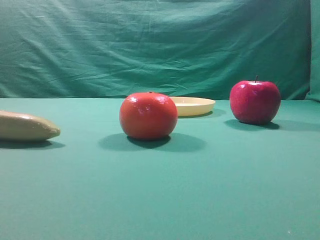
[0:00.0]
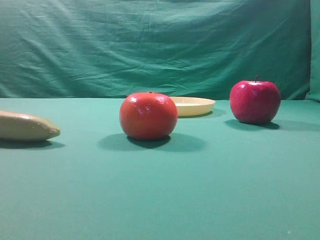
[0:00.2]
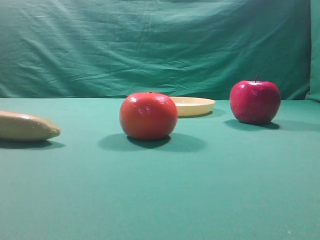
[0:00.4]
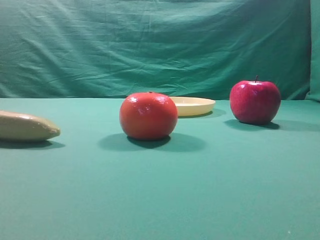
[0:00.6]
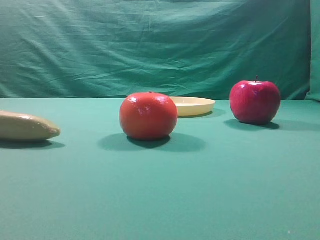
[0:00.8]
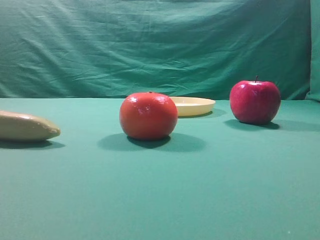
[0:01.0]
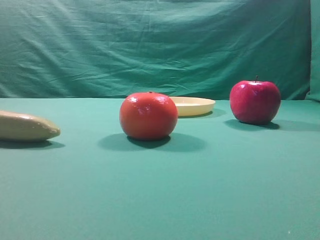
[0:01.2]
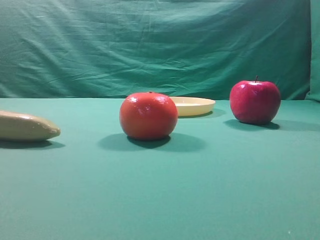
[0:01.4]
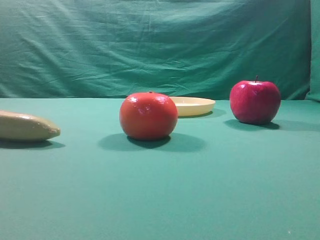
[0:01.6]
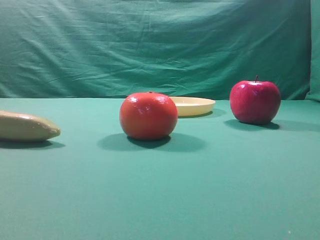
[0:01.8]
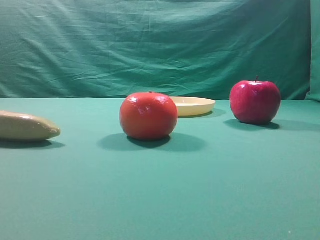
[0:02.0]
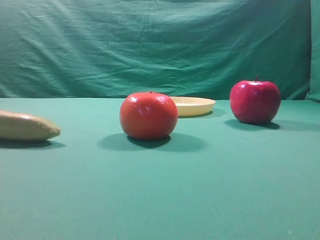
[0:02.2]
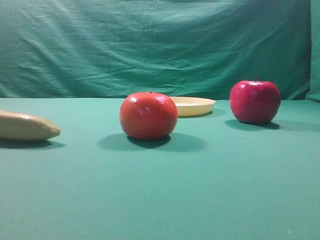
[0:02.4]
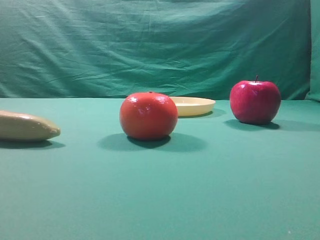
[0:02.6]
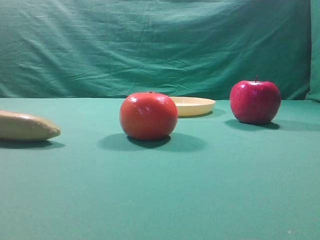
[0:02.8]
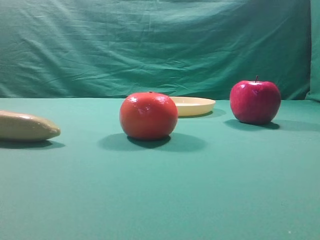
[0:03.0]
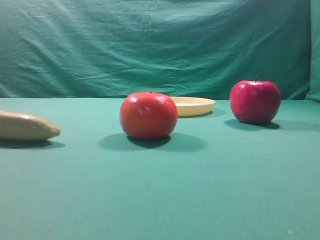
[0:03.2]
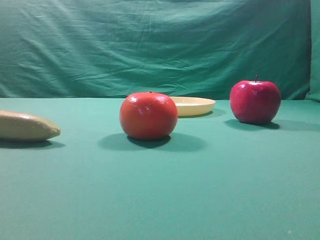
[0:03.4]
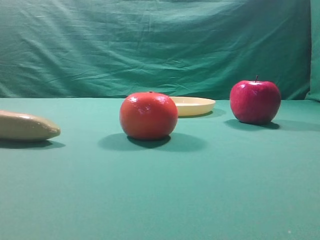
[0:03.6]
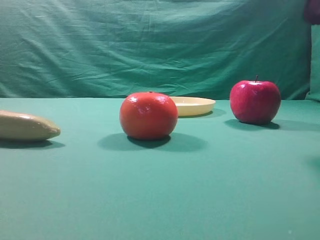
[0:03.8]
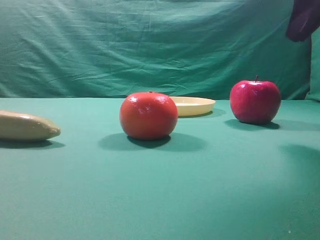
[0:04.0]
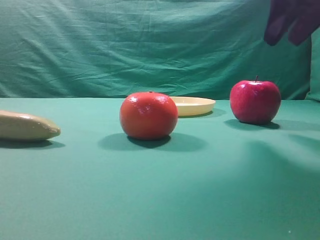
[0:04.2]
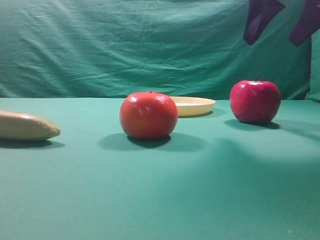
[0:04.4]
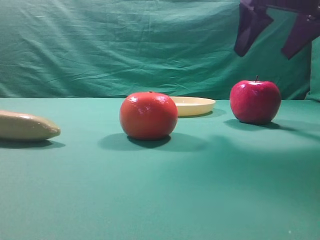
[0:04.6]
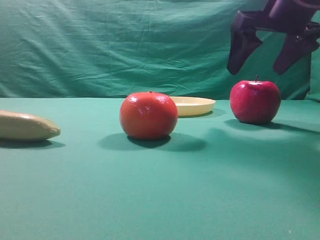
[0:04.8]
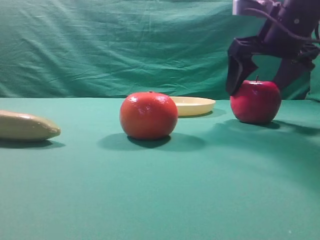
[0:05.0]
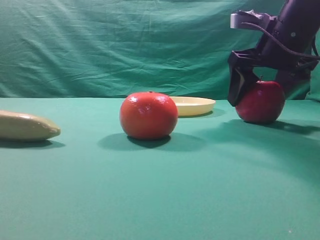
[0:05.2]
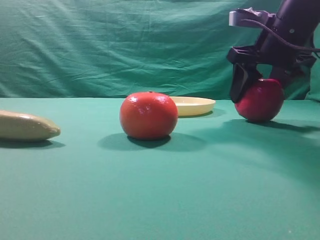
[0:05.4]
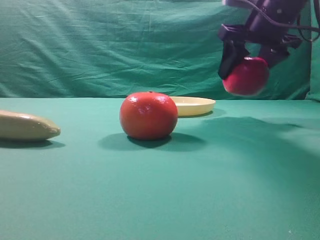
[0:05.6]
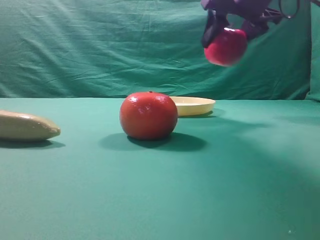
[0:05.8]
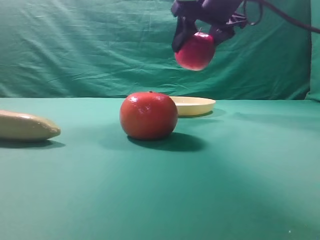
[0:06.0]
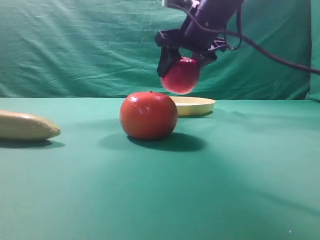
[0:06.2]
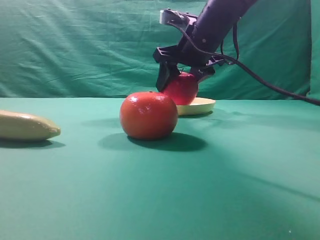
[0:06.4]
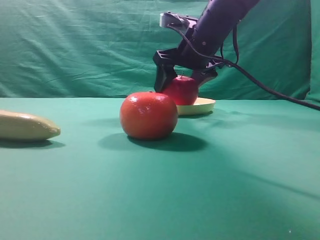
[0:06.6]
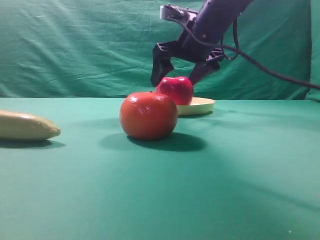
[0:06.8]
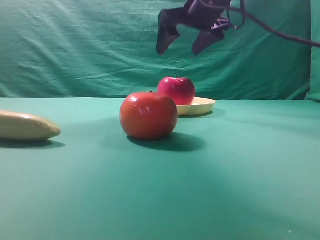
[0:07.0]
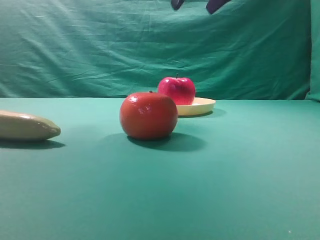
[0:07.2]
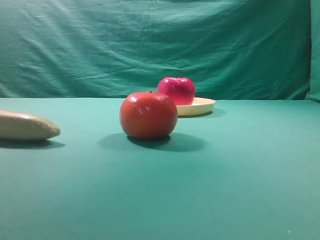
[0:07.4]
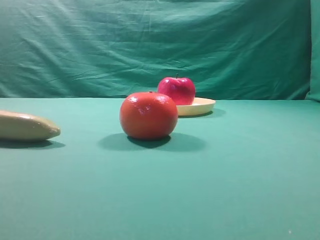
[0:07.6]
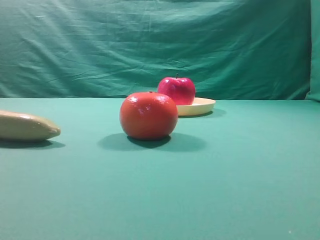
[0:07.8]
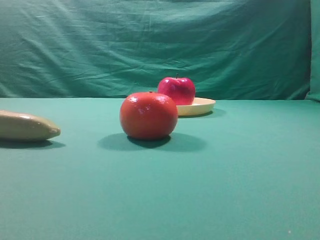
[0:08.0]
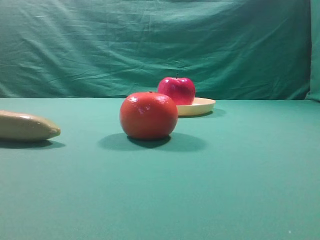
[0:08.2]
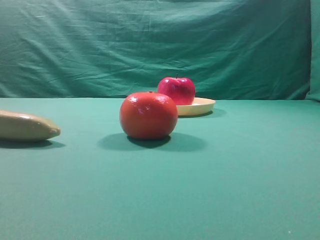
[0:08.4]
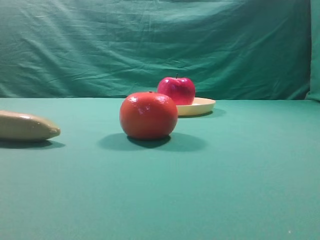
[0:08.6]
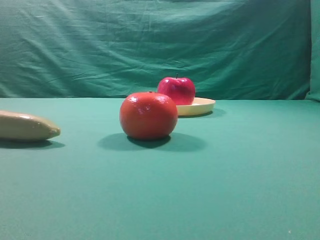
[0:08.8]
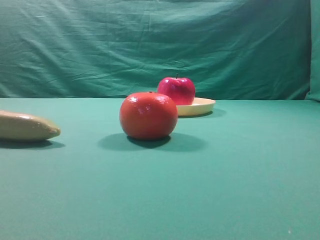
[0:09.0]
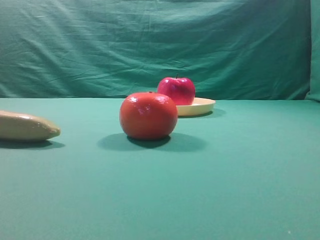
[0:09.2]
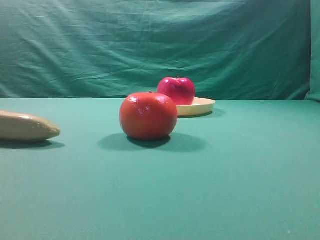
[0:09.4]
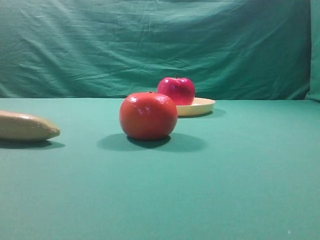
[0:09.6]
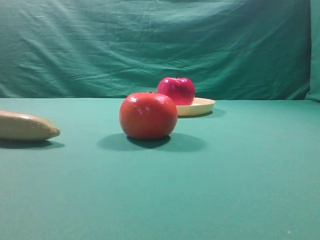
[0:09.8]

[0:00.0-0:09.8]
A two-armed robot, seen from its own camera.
Task of the whole recording: grasp the apple and place it into the yellow plate.
Step, 0:00.0 to 0:05.4: Grasp the fruit that can keep the doctor away.
Step, 0:05.6 to 0:06.8: Place the picked object into the yellow plate.

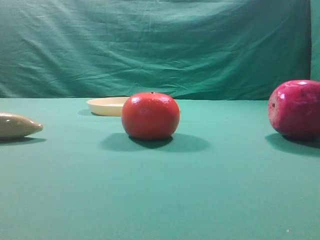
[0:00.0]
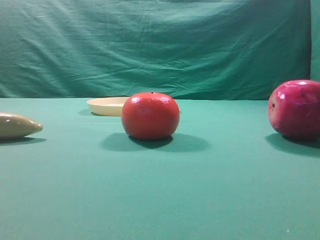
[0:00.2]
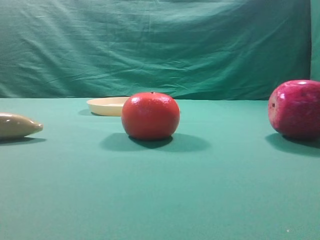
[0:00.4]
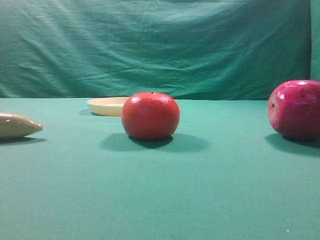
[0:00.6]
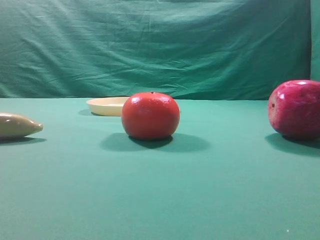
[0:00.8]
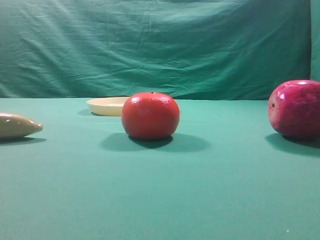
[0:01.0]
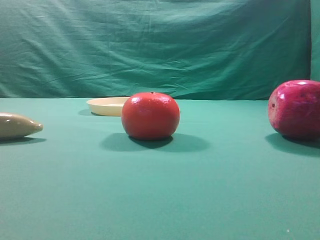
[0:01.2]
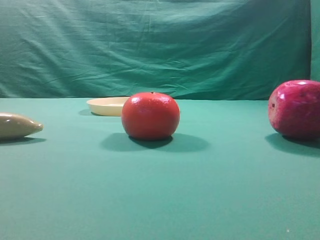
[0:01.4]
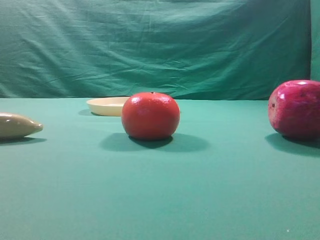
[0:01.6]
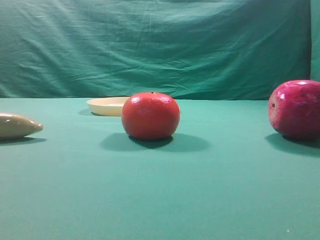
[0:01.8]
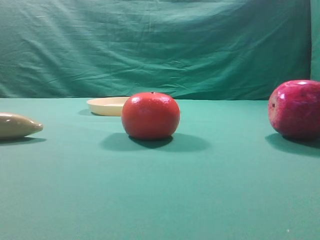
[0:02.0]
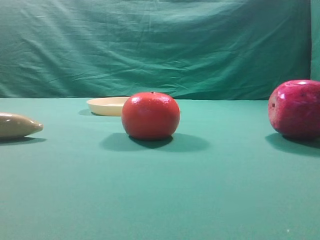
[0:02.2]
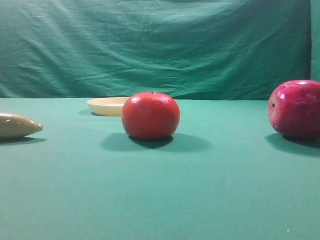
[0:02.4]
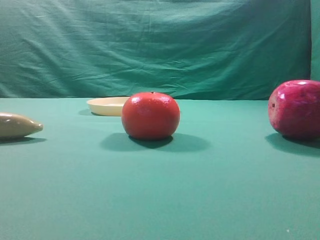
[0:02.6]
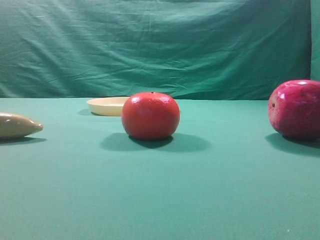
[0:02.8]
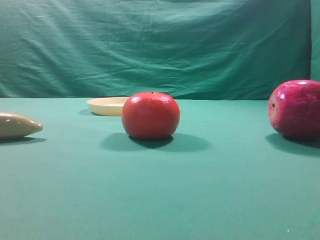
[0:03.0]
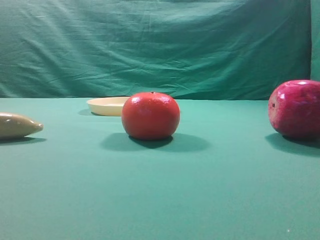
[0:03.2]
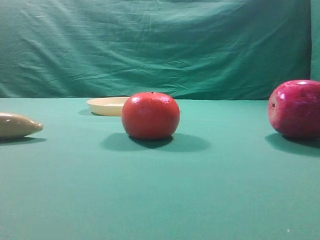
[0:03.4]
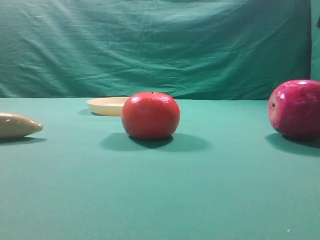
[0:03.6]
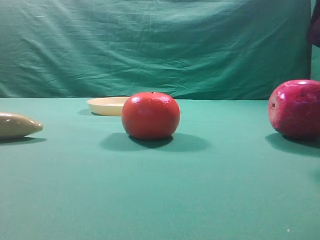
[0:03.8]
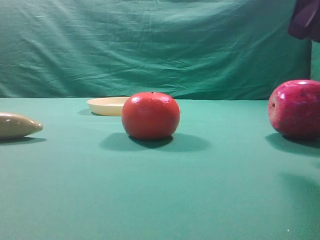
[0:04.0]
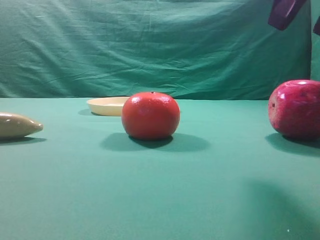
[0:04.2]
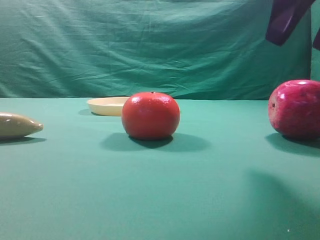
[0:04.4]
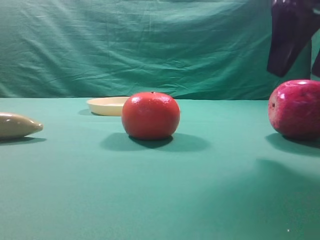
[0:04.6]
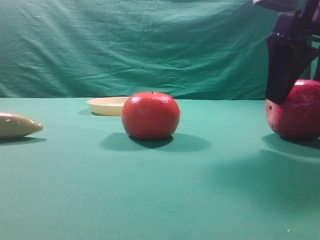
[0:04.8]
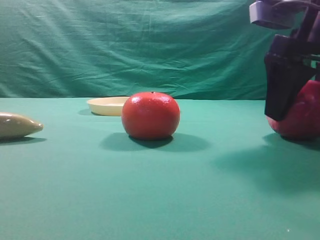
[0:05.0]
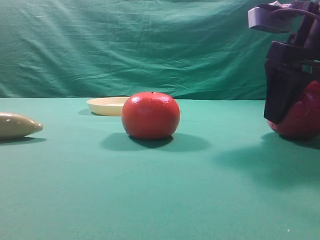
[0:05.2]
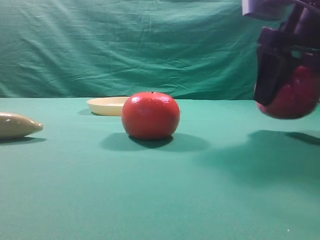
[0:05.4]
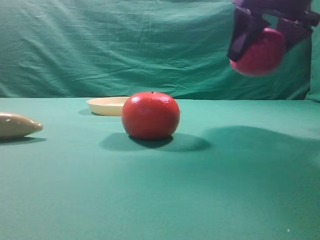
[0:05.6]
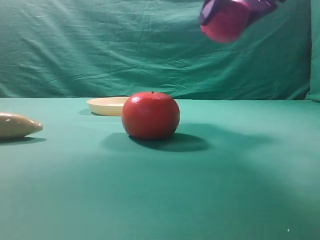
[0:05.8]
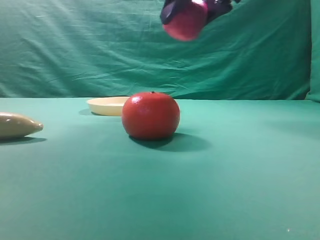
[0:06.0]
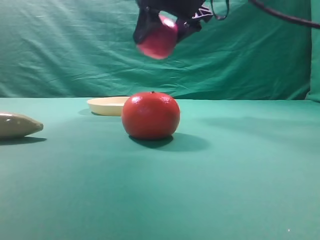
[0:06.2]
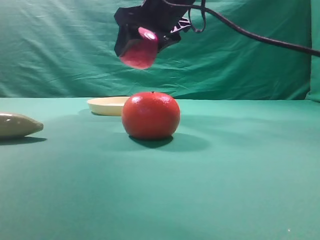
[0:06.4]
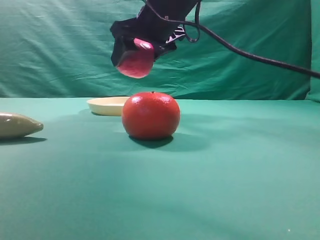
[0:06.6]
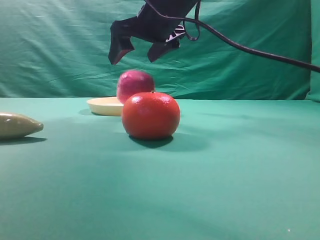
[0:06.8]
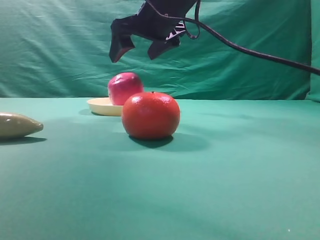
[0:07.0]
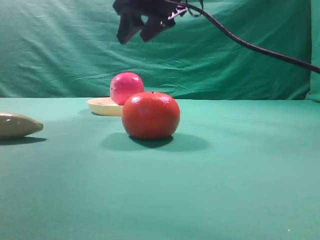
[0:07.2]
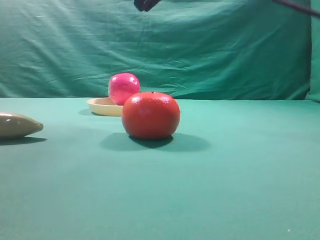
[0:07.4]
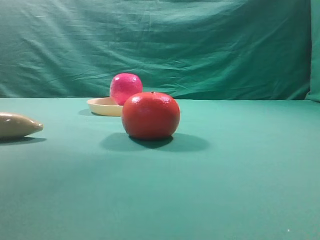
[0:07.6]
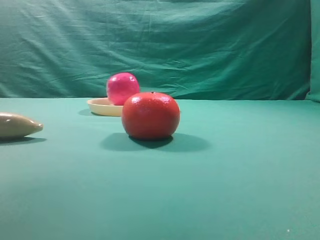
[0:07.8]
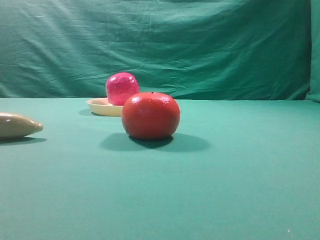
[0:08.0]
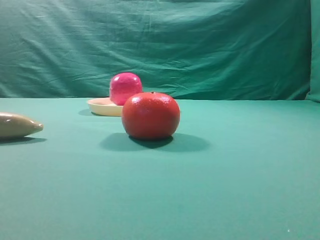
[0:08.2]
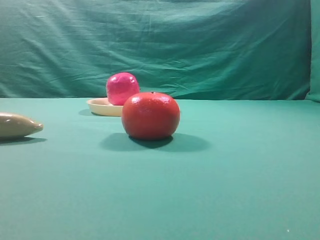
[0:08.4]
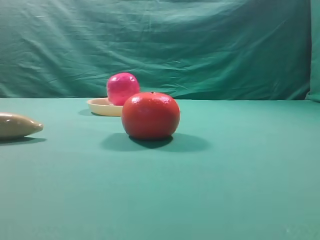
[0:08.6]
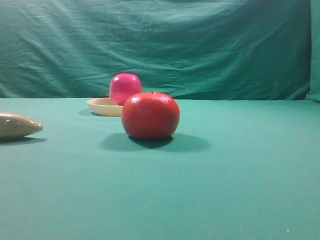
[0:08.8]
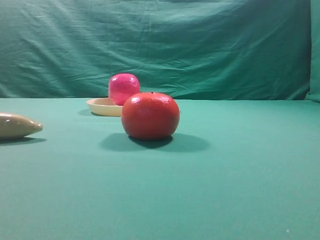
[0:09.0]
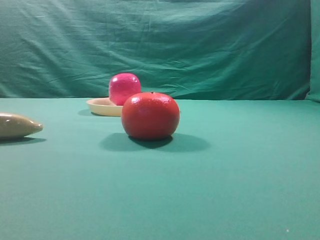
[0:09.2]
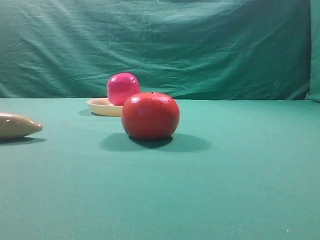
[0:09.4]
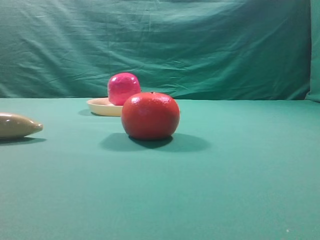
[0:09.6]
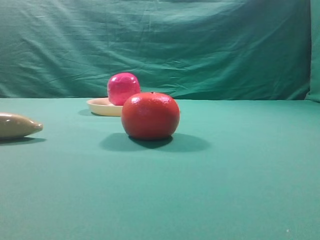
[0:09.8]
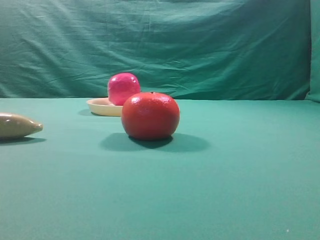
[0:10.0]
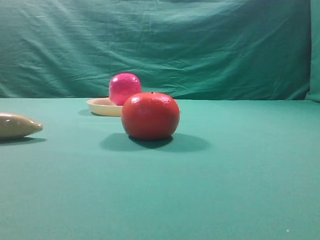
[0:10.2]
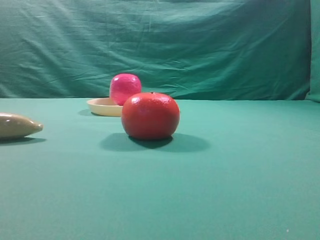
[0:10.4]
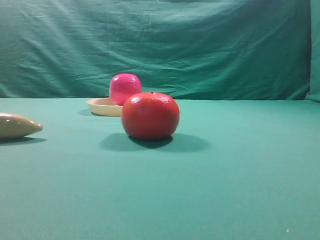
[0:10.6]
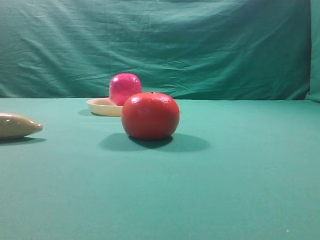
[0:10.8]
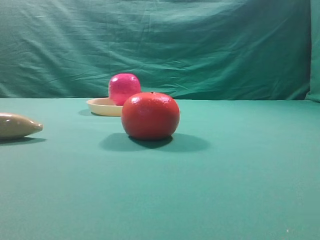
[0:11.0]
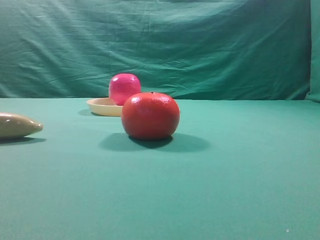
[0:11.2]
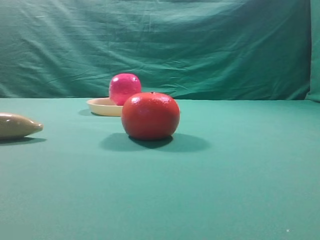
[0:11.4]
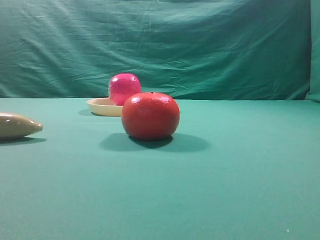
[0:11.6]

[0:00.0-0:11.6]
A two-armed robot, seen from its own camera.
Task of the whole recording: grasp the apple and place it into the yellow plate.
Step, 0:00.0 to 0:05.4: Grasp the fruit that can keep the doctor away.
Step, 0:05.6 to 0:07.0: Place the picked object into the yellow plate.
